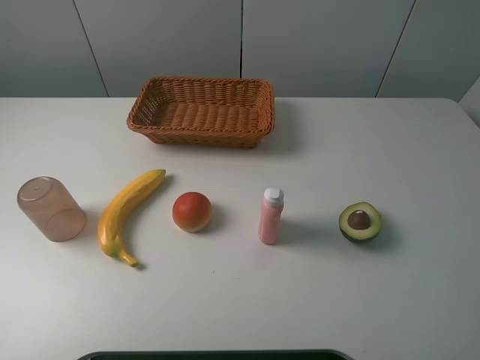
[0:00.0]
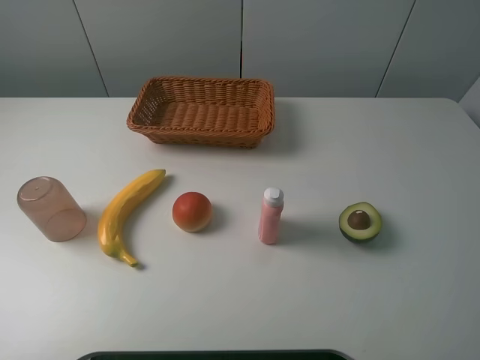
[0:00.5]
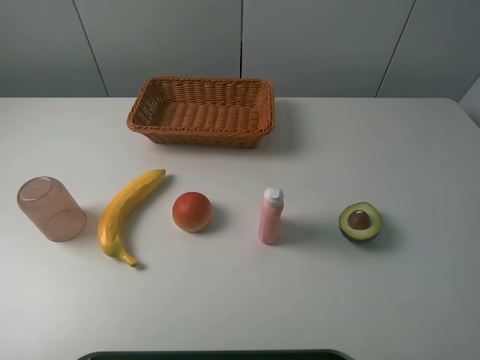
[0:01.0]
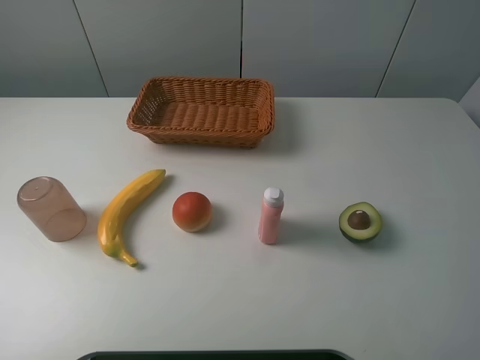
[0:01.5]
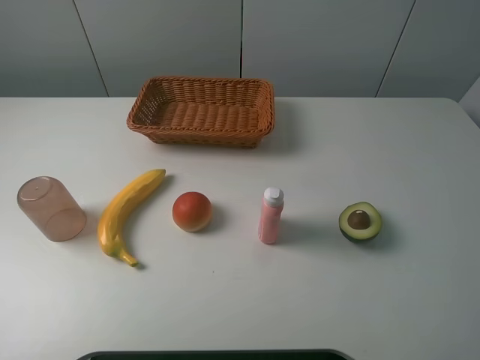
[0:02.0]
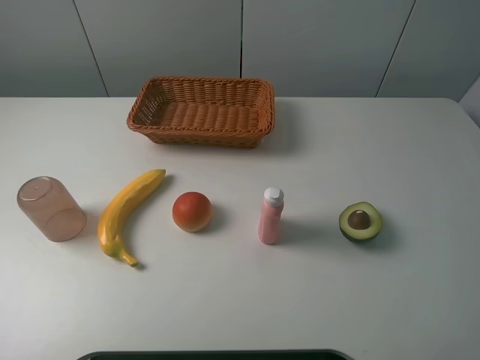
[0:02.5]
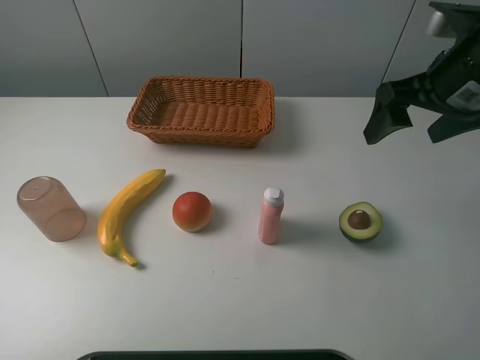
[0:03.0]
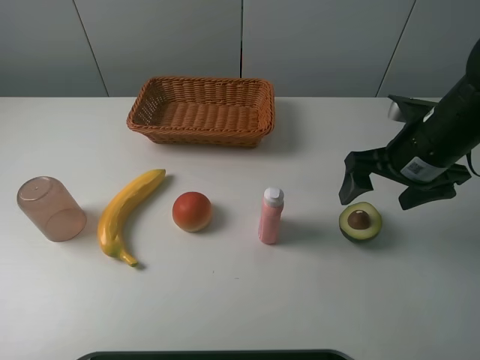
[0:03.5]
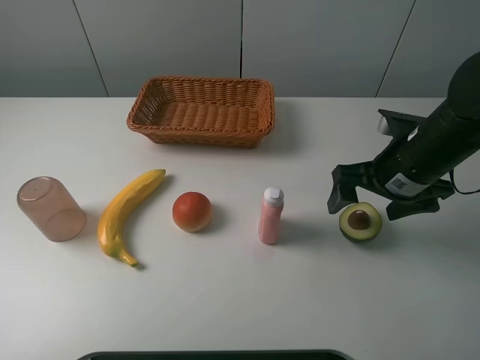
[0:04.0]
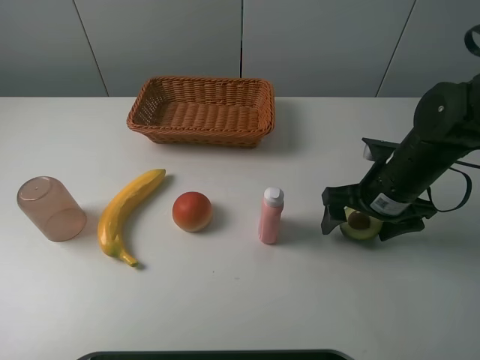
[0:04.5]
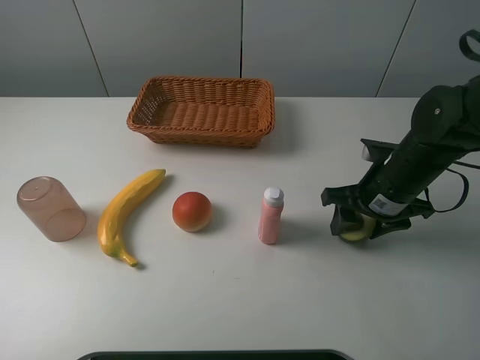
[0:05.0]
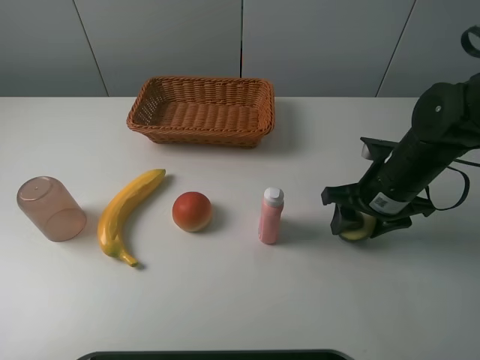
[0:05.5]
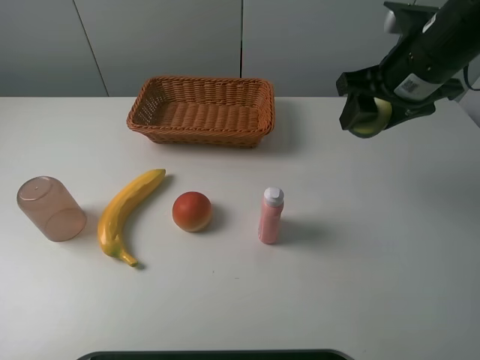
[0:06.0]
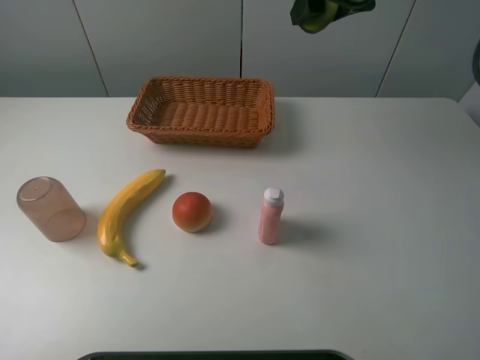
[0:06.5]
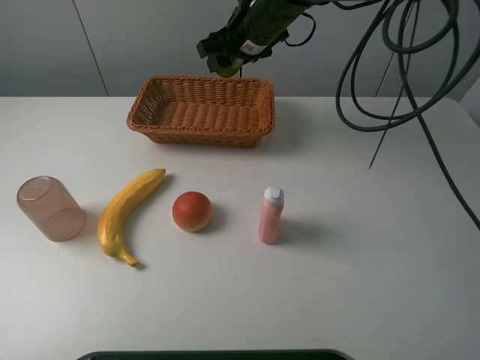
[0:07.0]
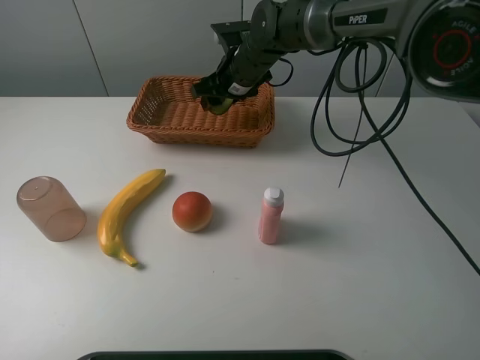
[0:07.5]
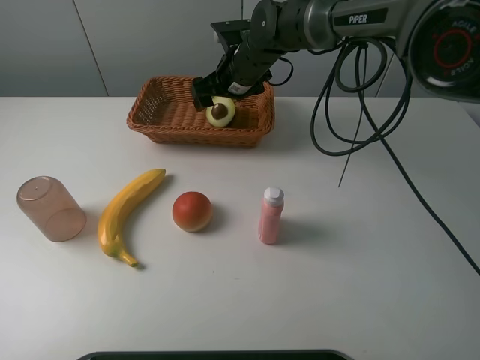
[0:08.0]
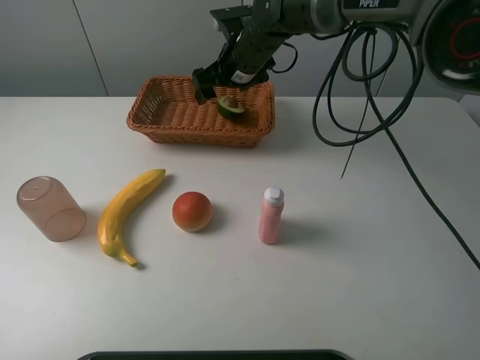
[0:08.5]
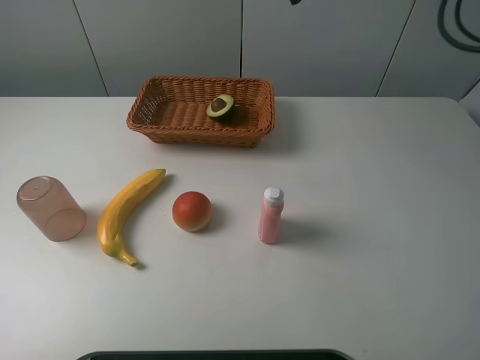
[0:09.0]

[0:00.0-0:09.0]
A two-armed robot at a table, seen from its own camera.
Task of the whole recording: randomly pick up an item from the table and put it in the basket.
Step, 0:00.0 to 0:05.0: Grasp the avocado with the right gripper.
Step, 0:05.5 to 0:08.5: Place the avocado into the basket with the right gripper.
0:02.0 to 0:04.5: The right gripper moves downward and forward, some 30 cm.
0:04.5 to 0:07.0: The right gripper goes some 30 cm forward, to the left and upward, and closes.
0:07.0 to 0:09.0: The right gripper heads upward and to the right, covering approximately 20 cm, and opens.
